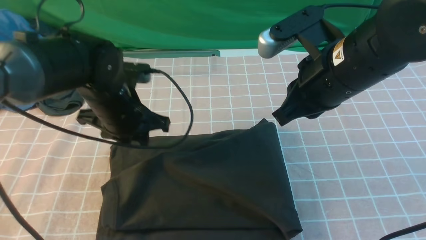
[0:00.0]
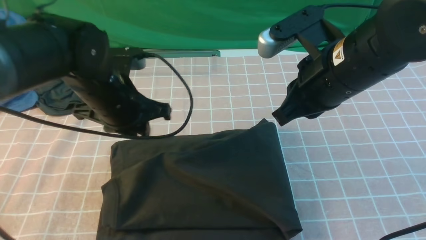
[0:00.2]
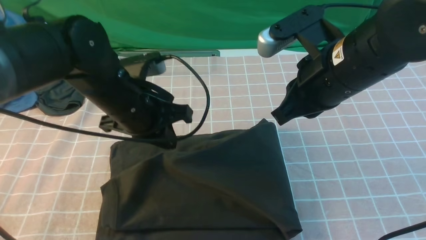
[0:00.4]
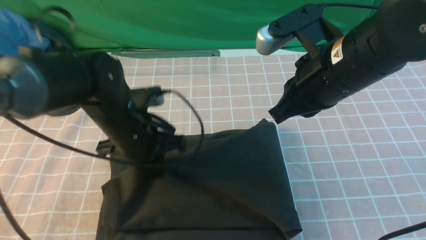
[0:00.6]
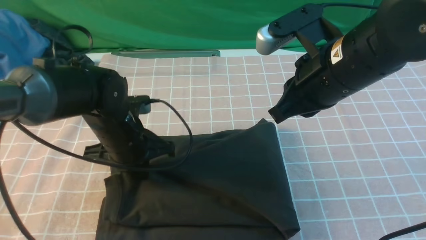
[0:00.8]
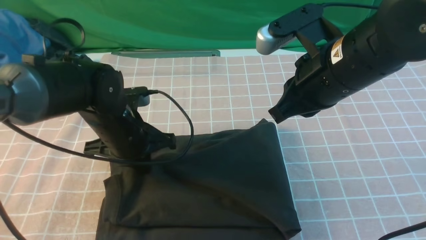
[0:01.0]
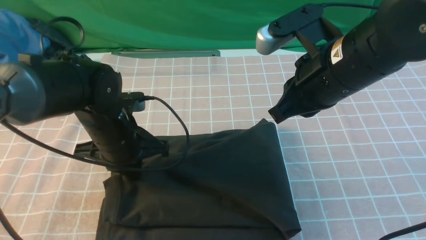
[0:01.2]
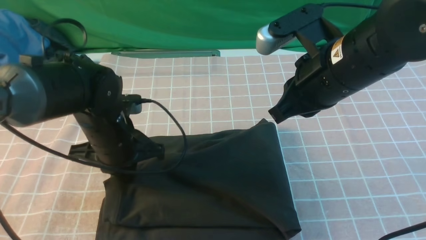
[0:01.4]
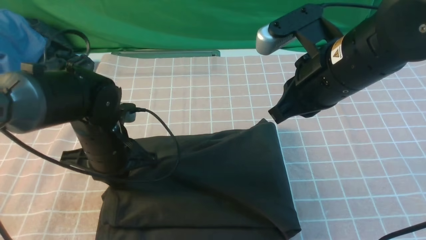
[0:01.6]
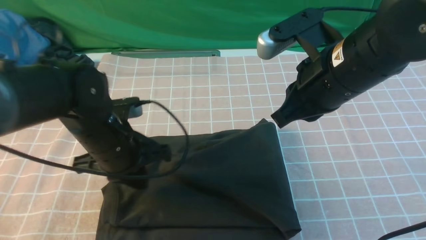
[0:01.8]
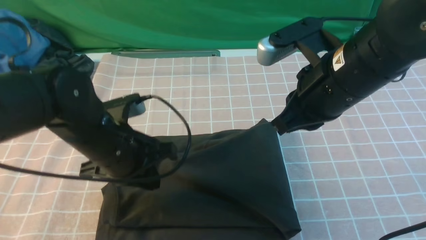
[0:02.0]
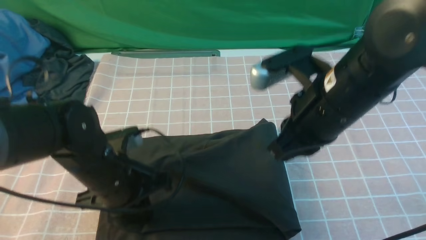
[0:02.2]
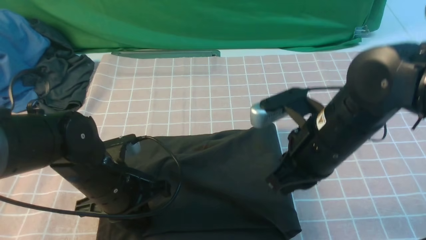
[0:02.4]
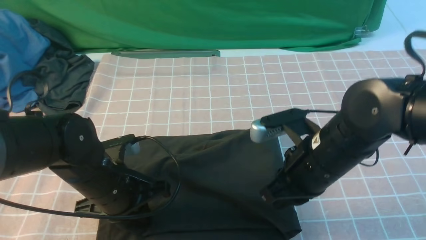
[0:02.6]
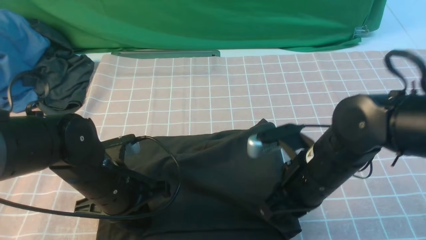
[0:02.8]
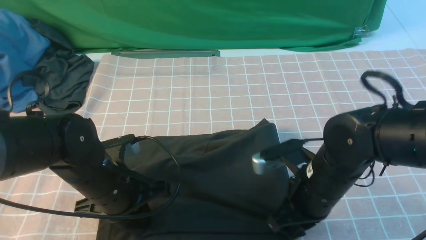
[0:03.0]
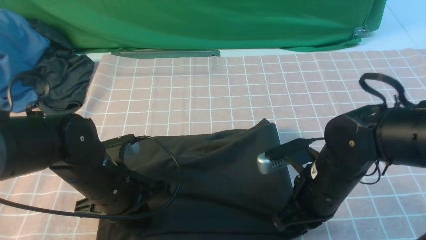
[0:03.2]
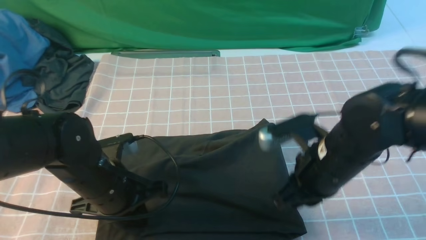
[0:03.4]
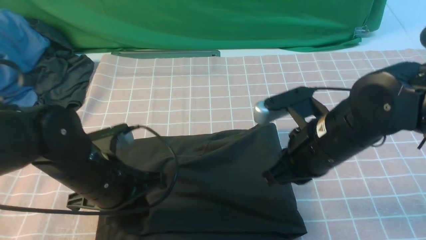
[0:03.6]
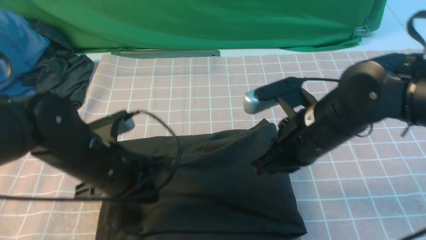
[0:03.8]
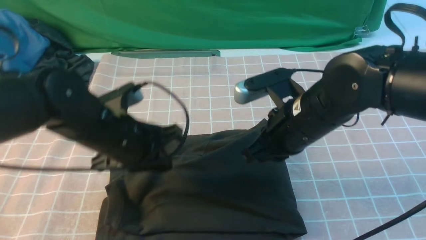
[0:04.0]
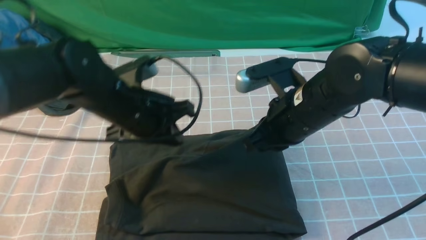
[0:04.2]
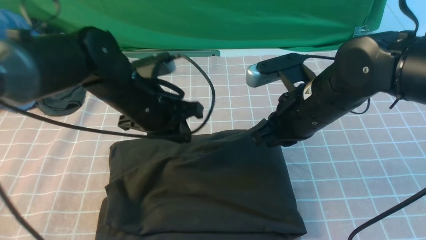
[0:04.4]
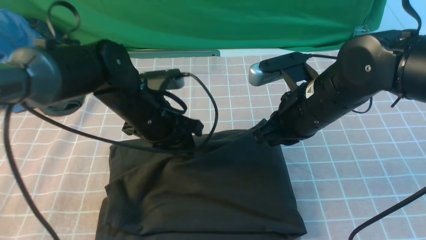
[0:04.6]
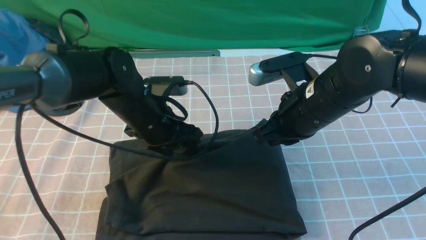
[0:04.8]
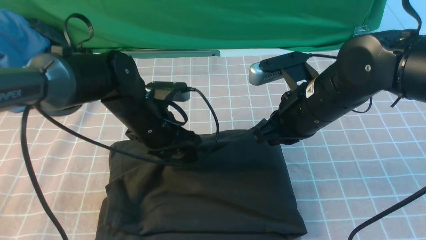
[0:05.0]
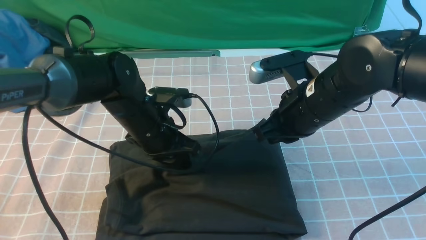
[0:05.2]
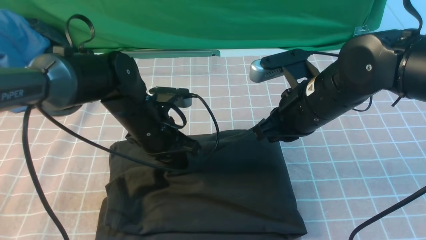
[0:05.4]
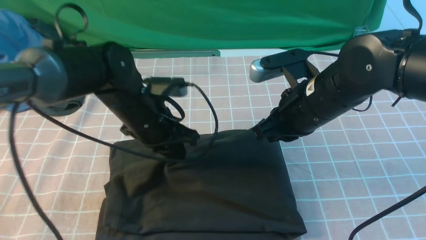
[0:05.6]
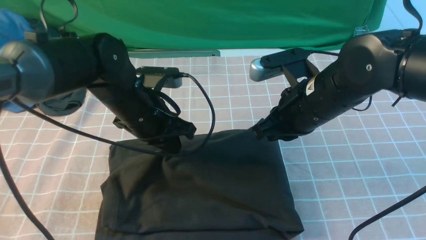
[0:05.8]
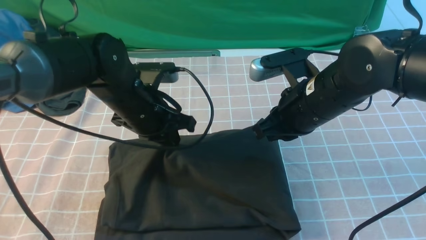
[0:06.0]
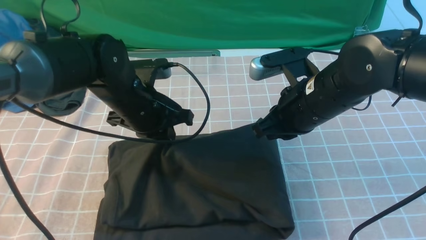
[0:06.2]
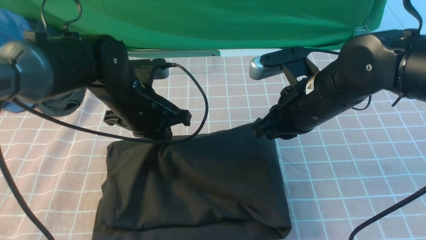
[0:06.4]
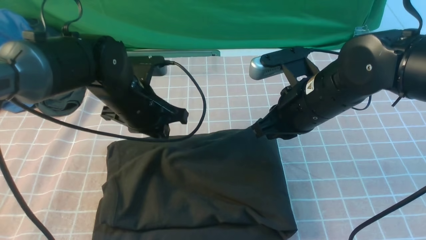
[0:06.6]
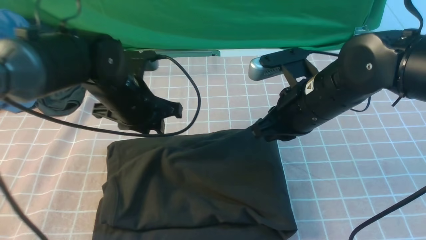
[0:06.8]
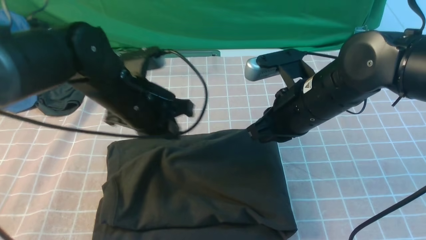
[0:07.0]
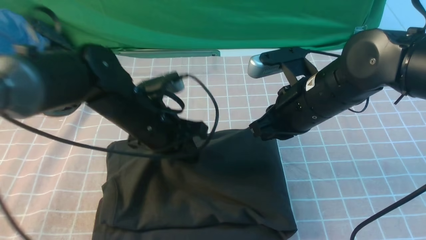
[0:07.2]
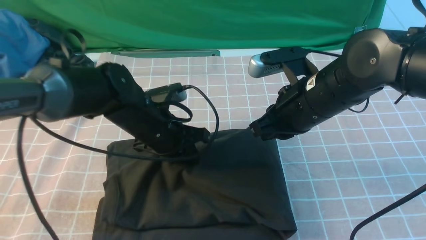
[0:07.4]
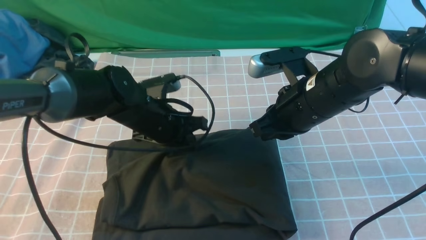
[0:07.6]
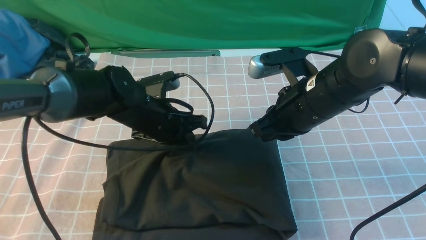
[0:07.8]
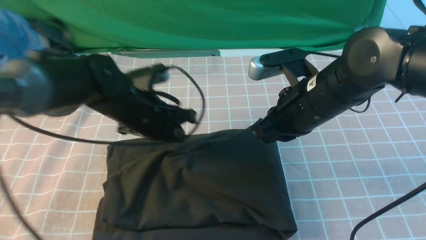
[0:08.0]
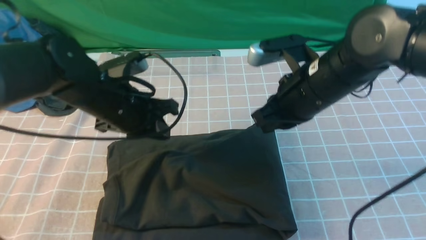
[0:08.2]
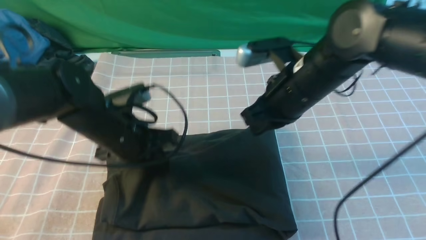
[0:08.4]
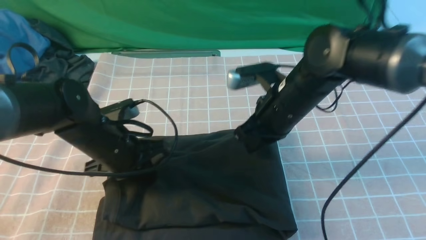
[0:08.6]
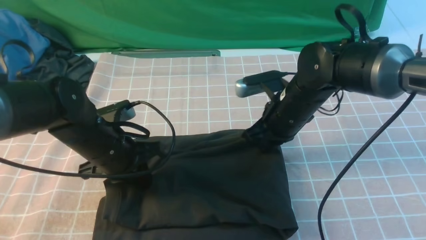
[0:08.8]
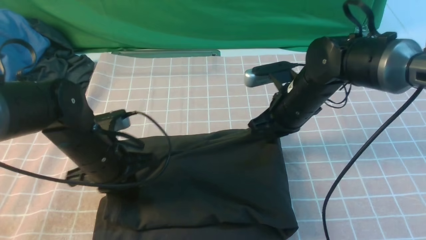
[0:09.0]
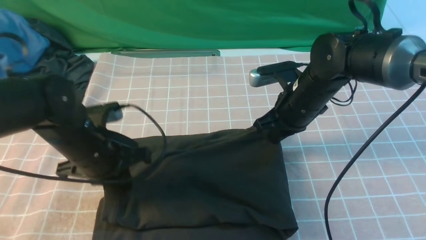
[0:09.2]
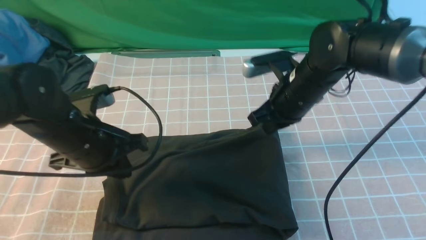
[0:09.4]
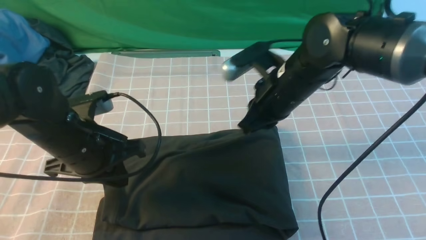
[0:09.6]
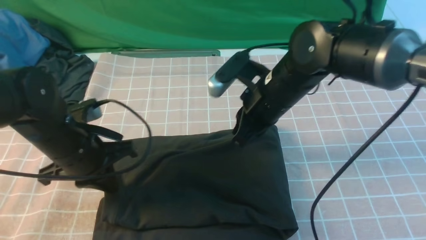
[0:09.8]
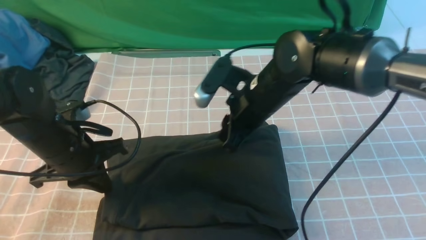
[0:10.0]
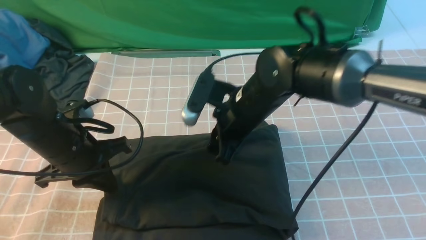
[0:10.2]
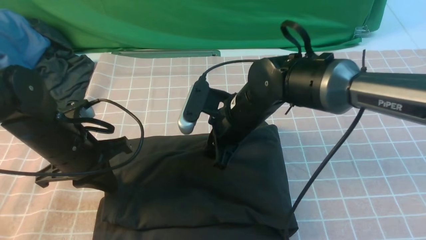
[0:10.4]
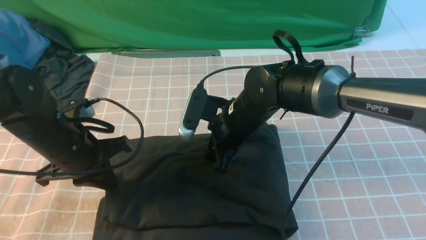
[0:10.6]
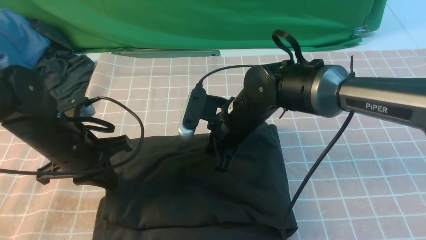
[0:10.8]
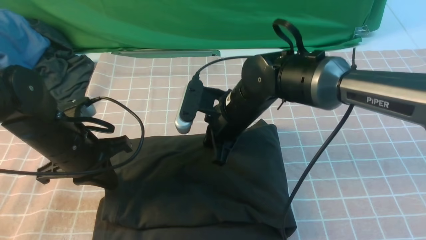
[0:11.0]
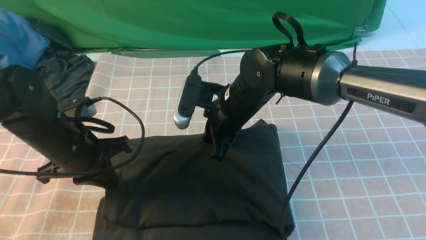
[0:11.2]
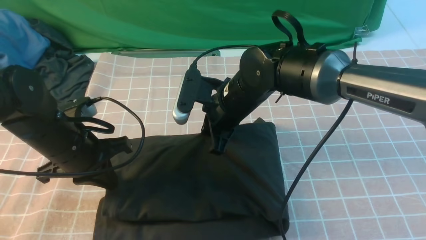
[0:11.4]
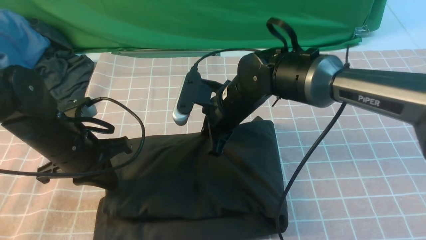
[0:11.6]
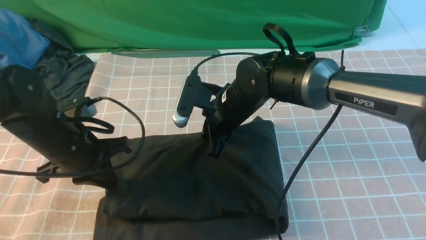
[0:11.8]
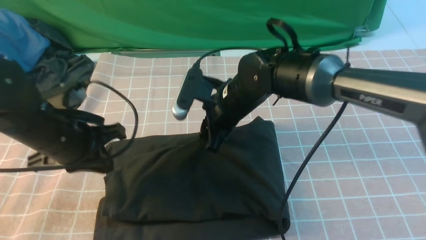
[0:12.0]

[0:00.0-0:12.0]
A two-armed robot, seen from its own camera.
0:00.0 to 0:01.6: The left gripper ends up about 5 cm from where it was, and closes its fingers.
0:01.6 to 0:03.0: The right gripper heads downward, covering roughly 15 cm; the left gripper moves backward, approximately 5 cm.
0:03.0 to 0:04.4: The left gripper heads forward and upward, covering some 10 cm. The right gripper is displaced upward and forward by approximately 10 cm.
0:04.4 to 0:06.0: The left gripper opens and closes again.
0:06.0 to 0:07.6: The grippers move only a little.
0:07.6 to 0:09.0: The left gripper goes approximately 10 cm to the left and backward, while the right gripper goes roughly 10 cm forward and downward.
0:09.0 to 0:10.4: The right gripper is displaced to the left by about 10 cm, and opens its fingers.
0:10.4 to 0:12.0: The right gripper closes, then reopens.

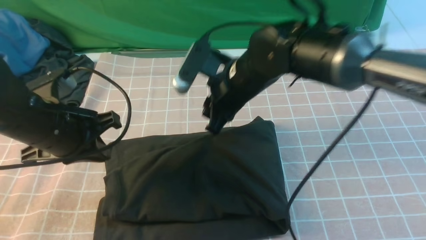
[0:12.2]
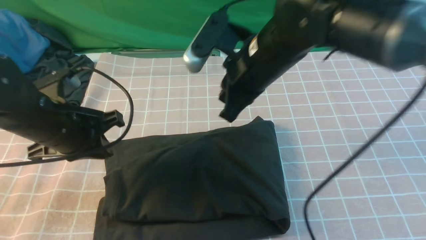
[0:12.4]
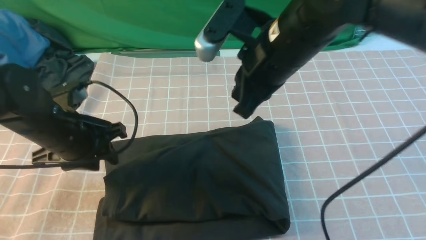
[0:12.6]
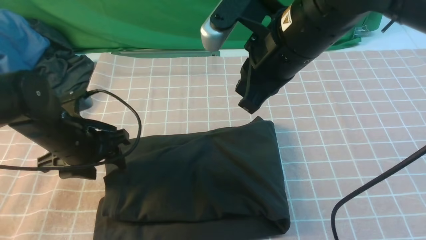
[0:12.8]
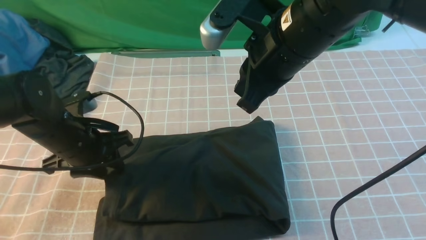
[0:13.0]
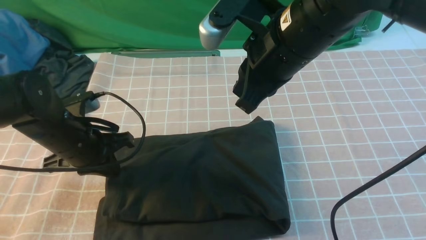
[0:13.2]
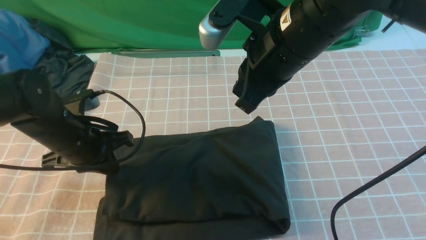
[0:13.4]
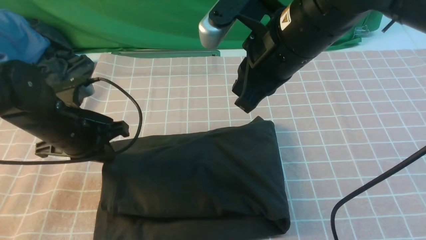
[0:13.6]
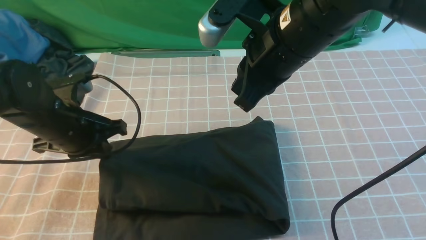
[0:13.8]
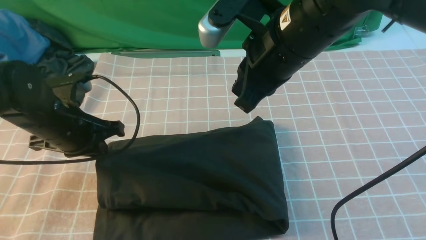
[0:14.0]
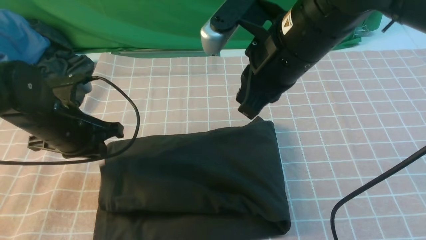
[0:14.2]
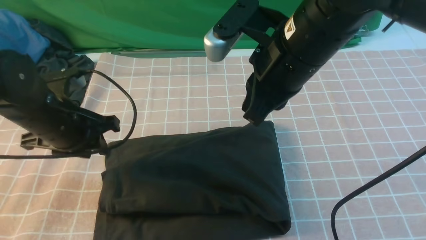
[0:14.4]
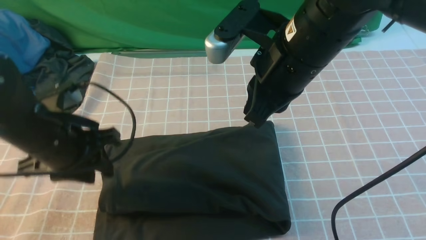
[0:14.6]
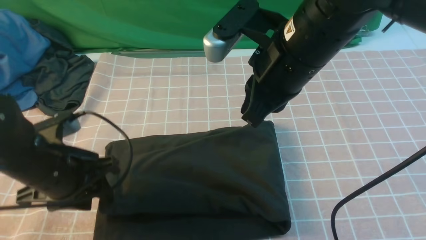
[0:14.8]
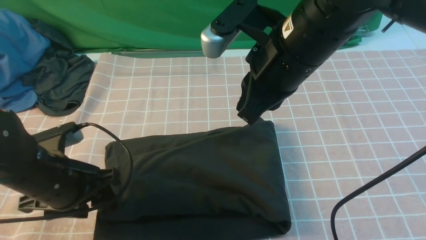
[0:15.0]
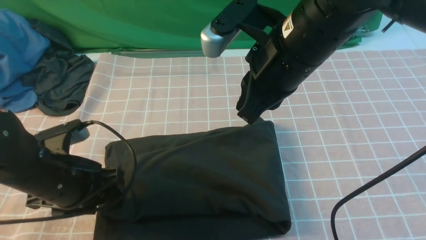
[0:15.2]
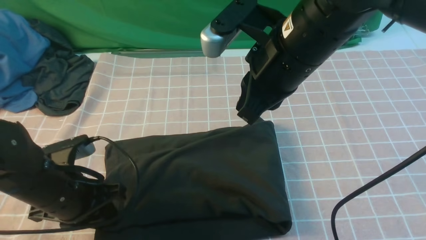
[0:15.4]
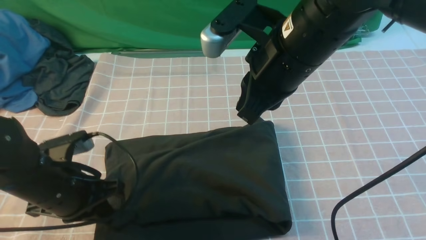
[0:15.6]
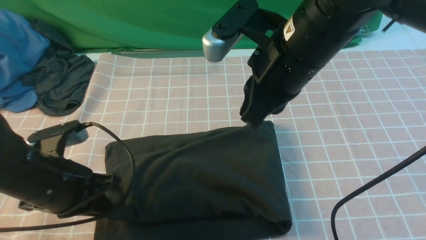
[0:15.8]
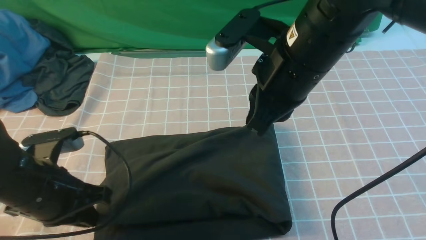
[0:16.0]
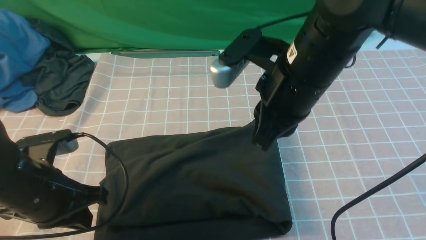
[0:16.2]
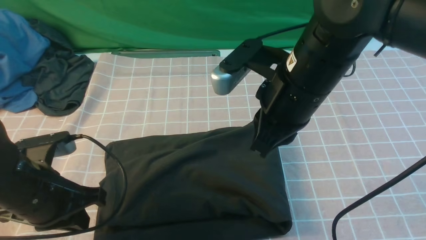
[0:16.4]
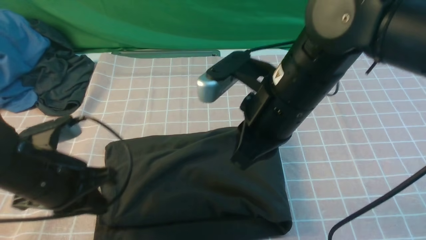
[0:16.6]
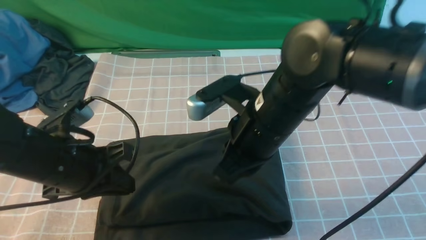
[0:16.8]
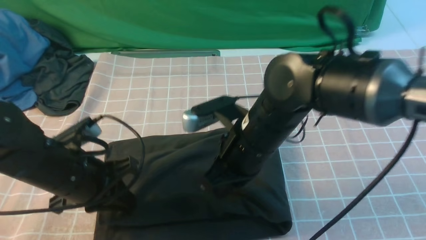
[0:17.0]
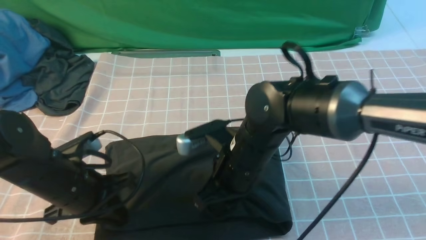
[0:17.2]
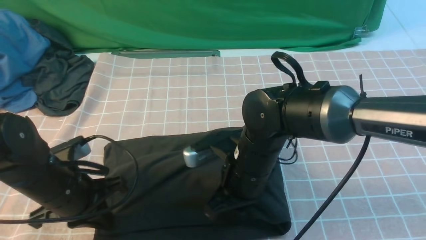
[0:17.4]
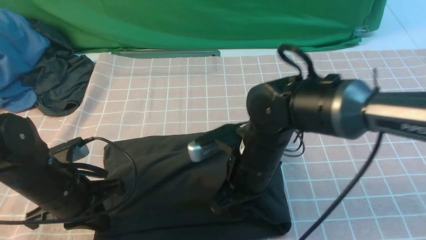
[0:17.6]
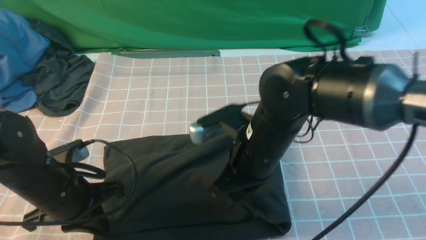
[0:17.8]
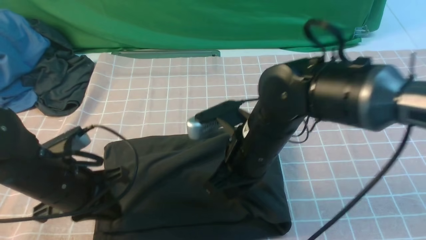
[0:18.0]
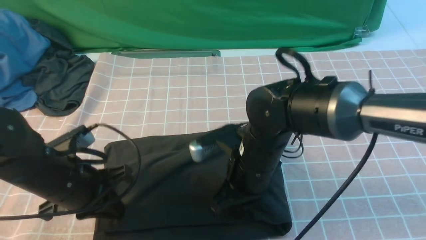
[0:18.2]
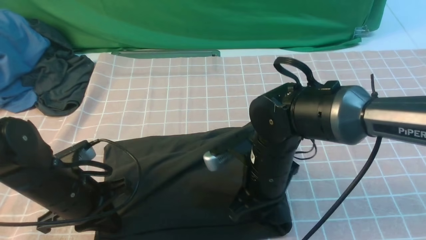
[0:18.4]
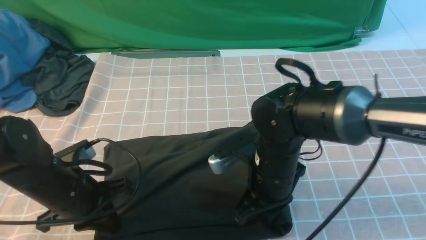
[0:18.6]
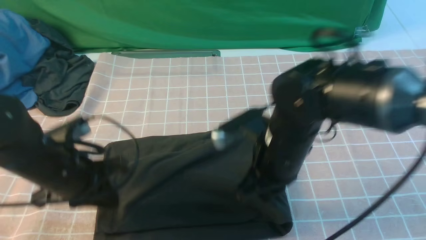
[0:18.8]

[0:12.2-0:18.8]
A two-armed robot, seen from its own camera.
0:12.2 to 0:13.8: The right gripper goes approximately 10 cm upward and backward, and closes its fingers; the left gripper opens, then closes once more.
0:13.8 to 0:15.4: The left gripper is displaced backward by approximately 10 cm, and opens its fingers.
0:15.4 to 0:17.2: The right gripper shifts about 15 cm downward. Meanwhile the left gripper closes its fingers.
0:17.2 to 0:18.8: The right gripper shifts by roughly 5 cm.
